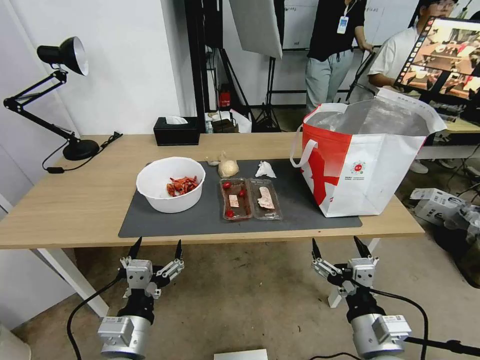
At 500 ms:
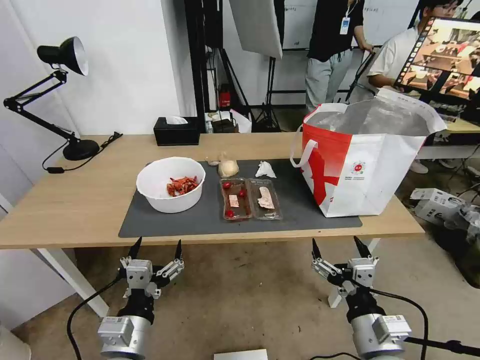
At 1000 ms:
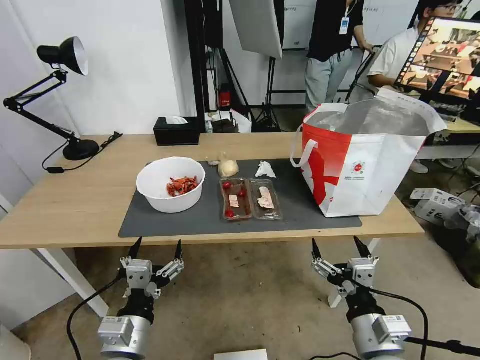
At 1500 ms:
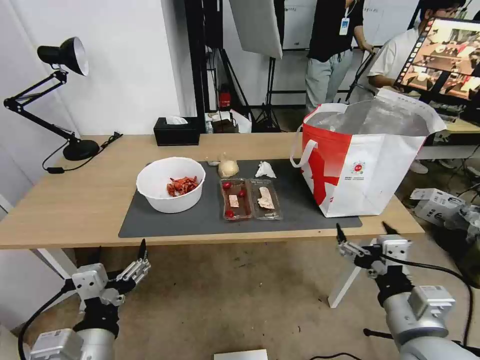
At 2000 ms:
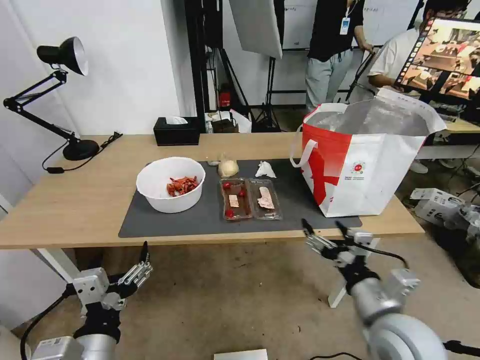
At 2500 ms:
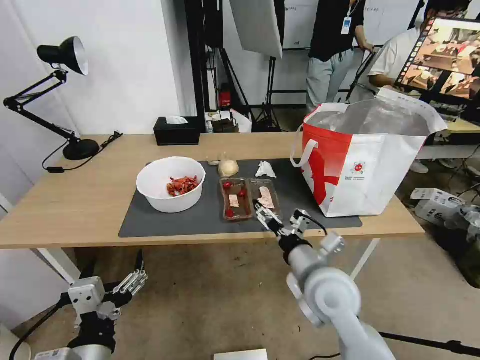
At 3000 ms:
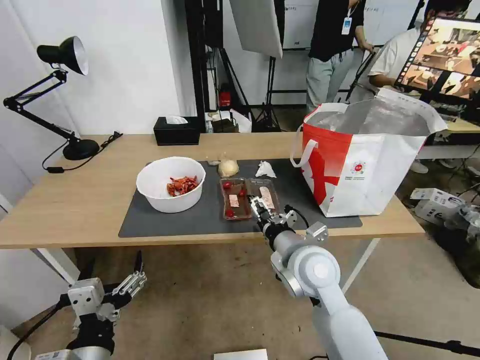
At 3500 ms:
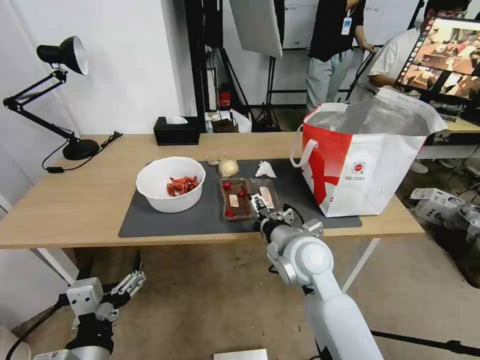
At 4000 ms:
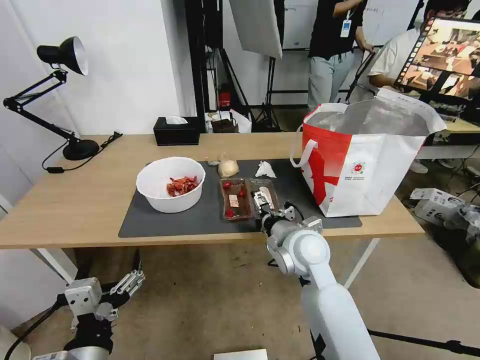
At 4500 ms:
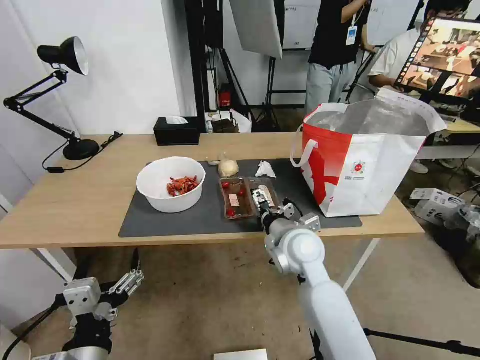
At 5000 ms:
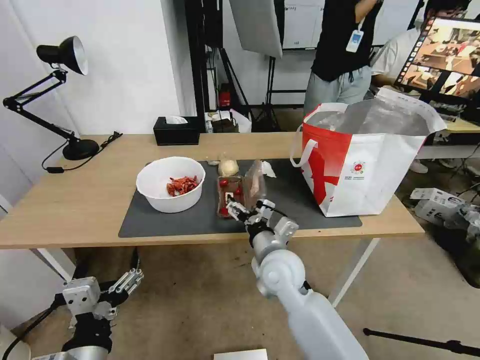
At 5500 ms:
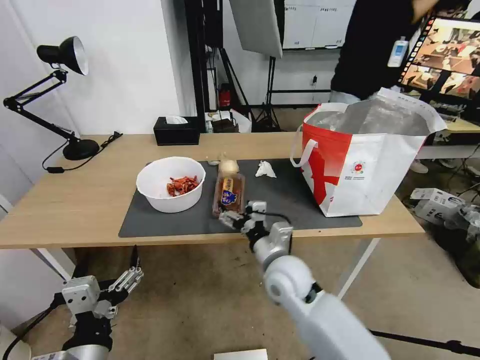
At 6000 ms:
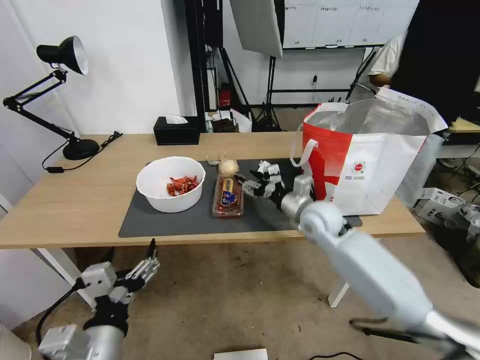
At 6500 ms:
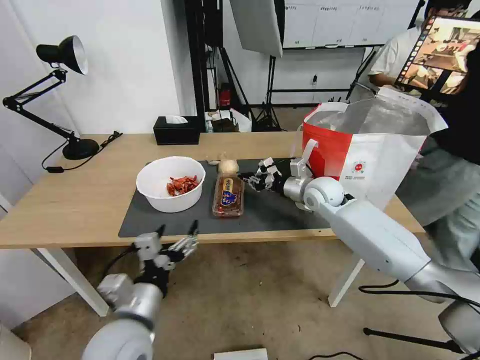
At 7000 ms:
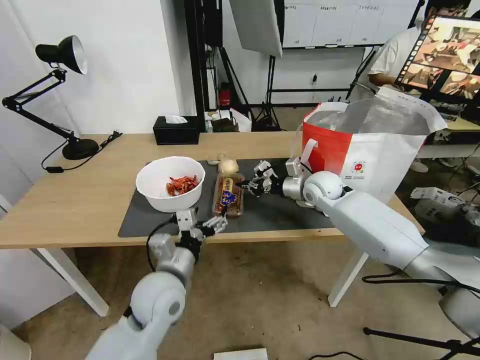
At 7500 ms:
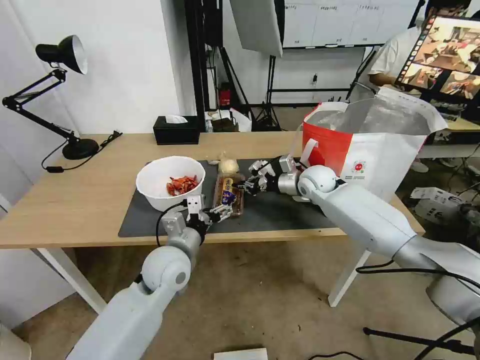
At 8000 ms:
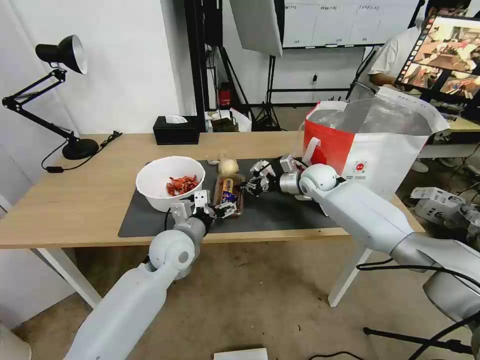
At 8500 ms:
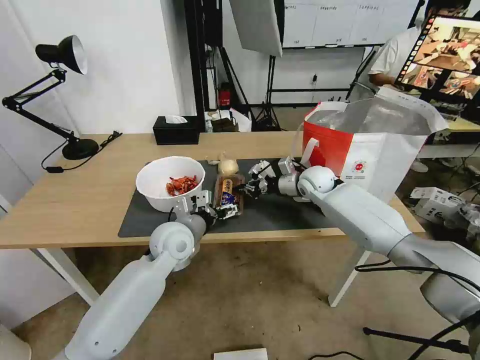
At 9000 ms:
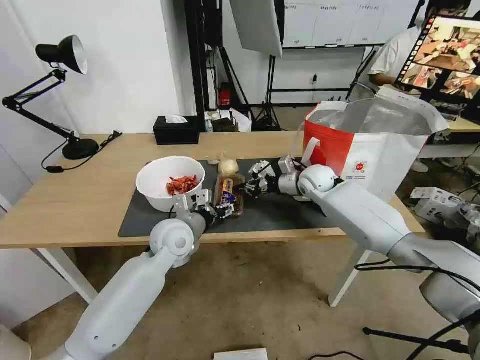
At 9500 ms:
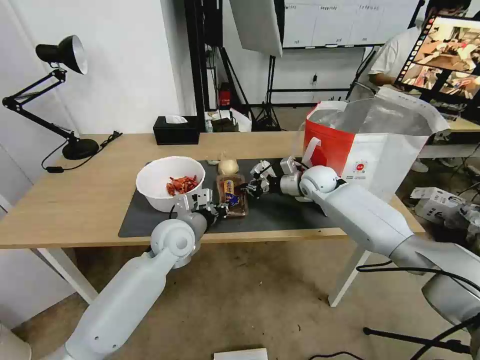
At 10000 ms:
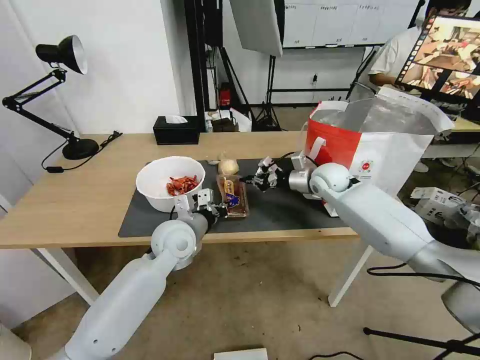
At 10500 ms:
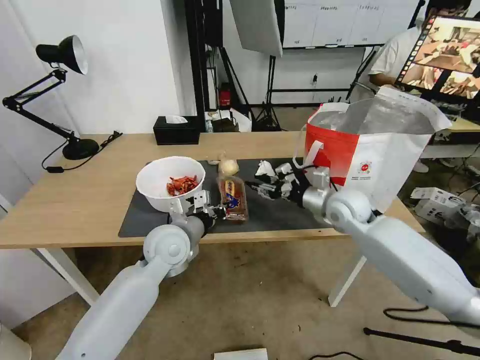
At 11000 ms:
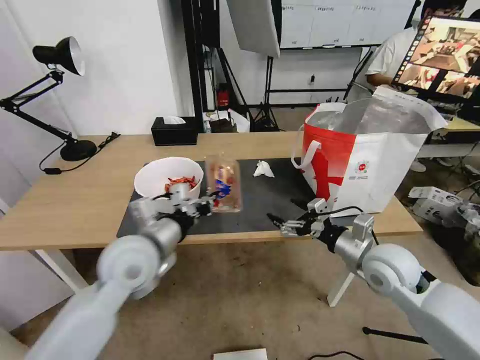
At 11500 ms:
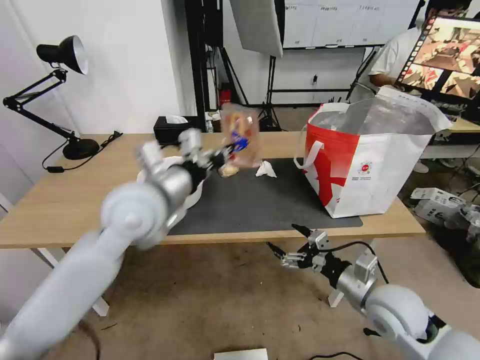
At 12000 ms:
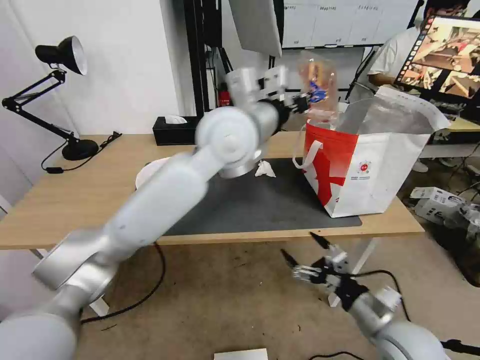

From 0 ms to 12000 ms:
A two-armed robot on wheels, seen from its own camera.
Task of the whole recording: Pick up the trash from the table and place it into the takeout bag.
From 2000 ms to 4000 ms: The right gripper is displaced forward and to the left by about 20 cm.
From 4000 ms to 6000 ms: The right gripper shifts some 10 cm forward and to the right, and closes up.
From 6000 ms to 8000 ms: The right gripper goes about 15 cm forward, and closes up. Meanwhile the left gripper goes approximately 25 cm forward.
From 8000 ms to 10000 ms: The left gripper closes its fingers.
From 10000 ms to 12000 ms: The right gripper is displaced backward by about 35 cm, and opens its fingers. Meanwhile the left gripper is displaced upward and to the right by some 25 cm.

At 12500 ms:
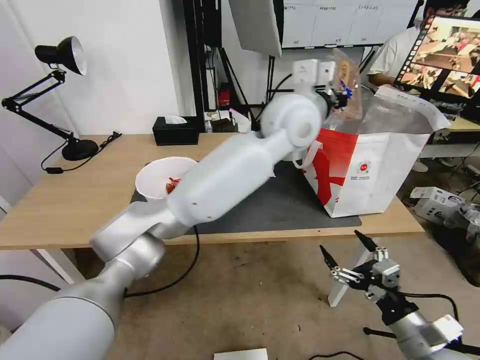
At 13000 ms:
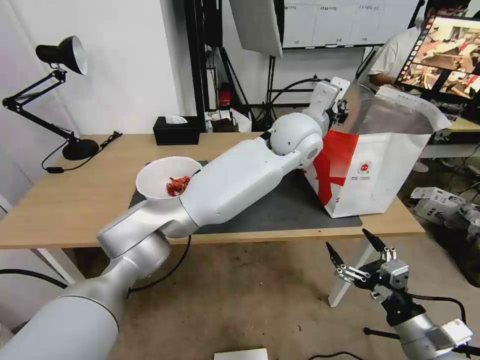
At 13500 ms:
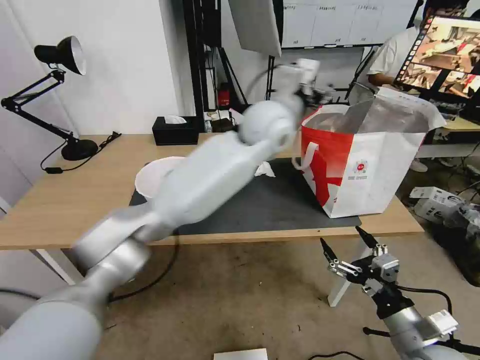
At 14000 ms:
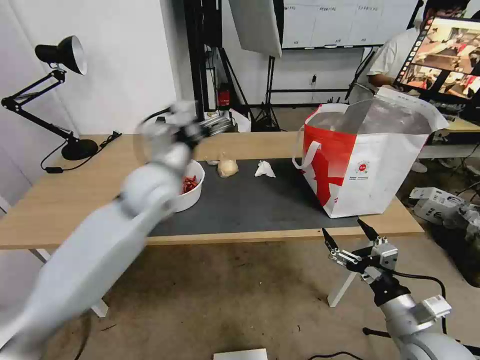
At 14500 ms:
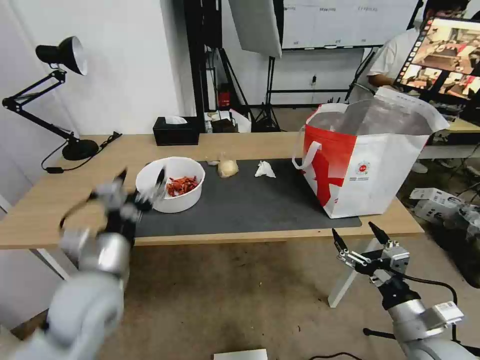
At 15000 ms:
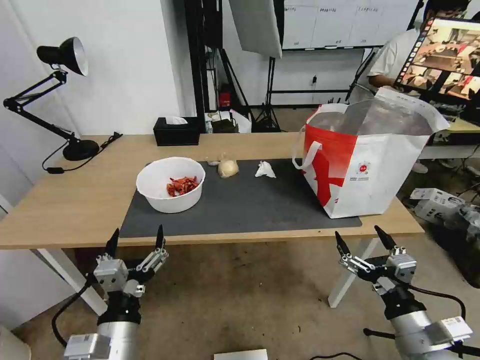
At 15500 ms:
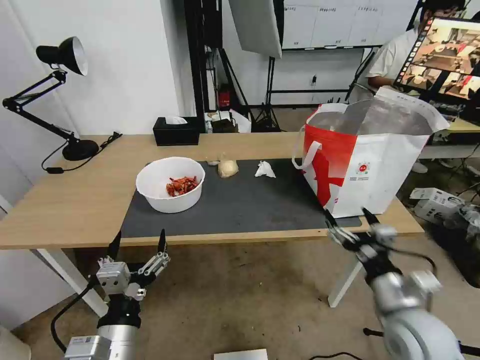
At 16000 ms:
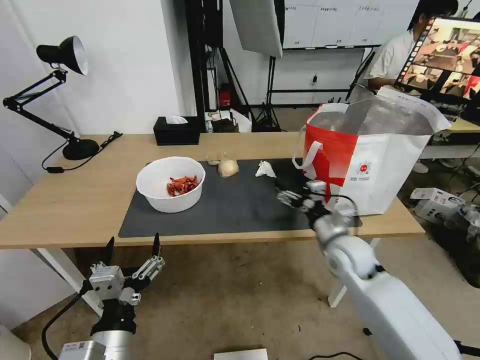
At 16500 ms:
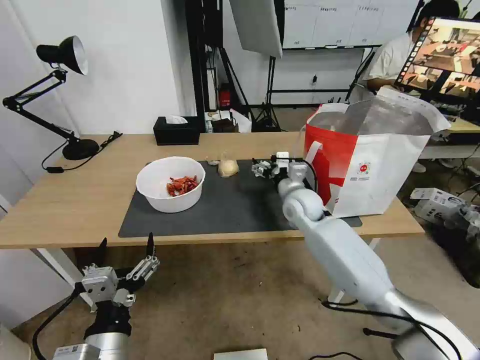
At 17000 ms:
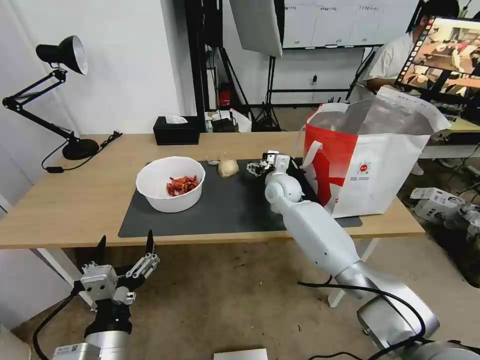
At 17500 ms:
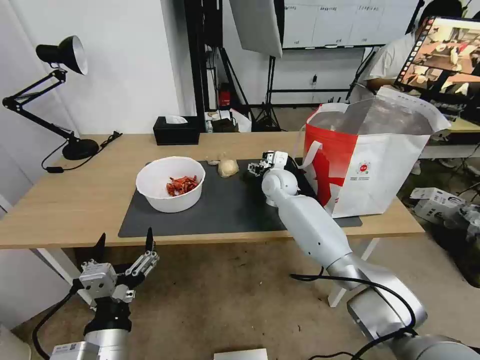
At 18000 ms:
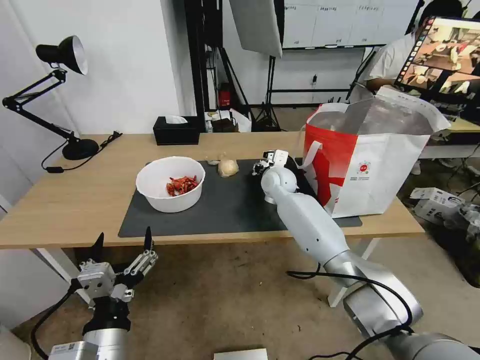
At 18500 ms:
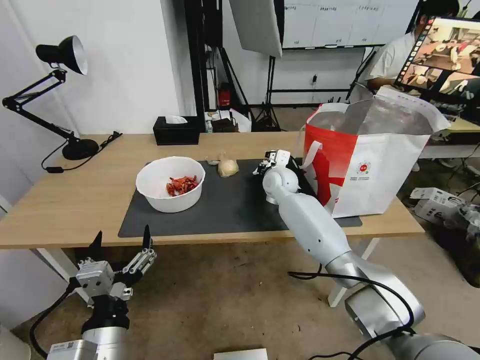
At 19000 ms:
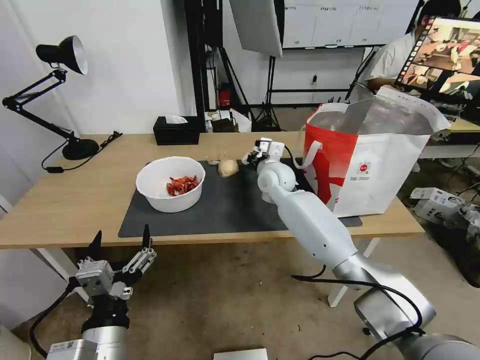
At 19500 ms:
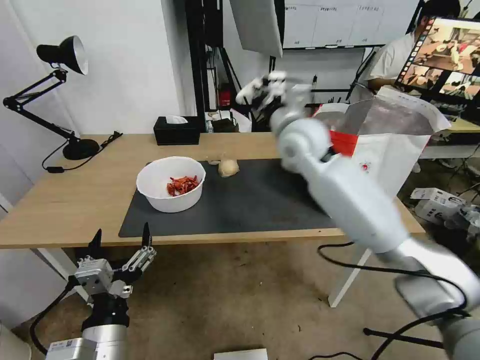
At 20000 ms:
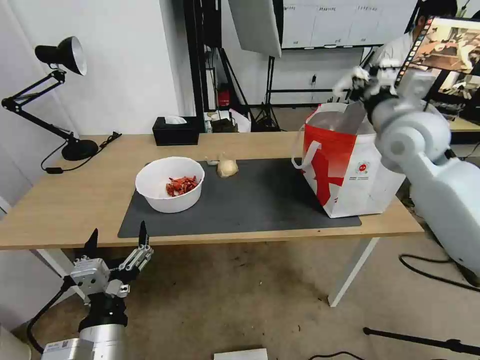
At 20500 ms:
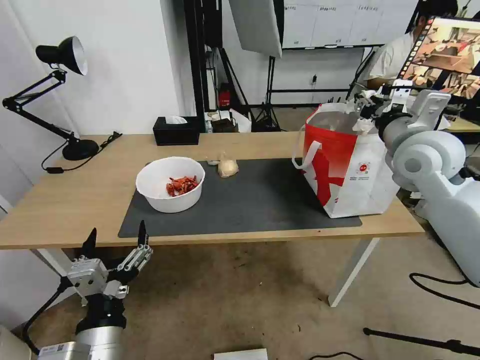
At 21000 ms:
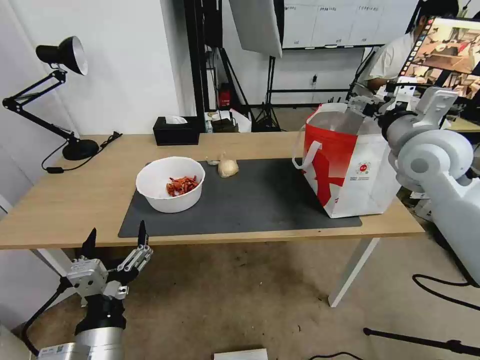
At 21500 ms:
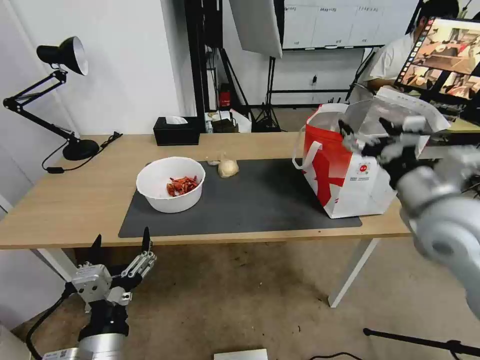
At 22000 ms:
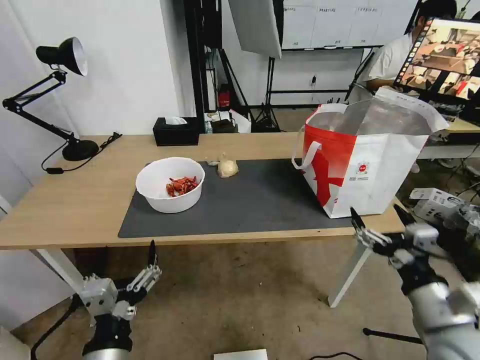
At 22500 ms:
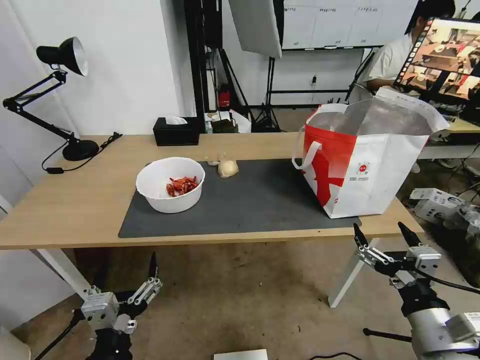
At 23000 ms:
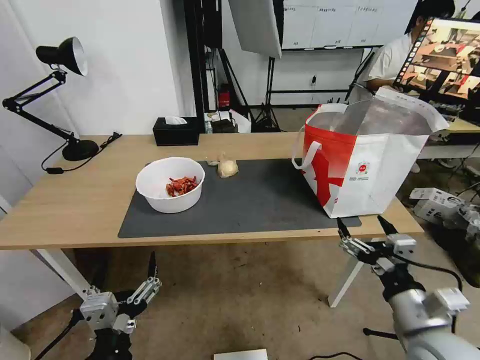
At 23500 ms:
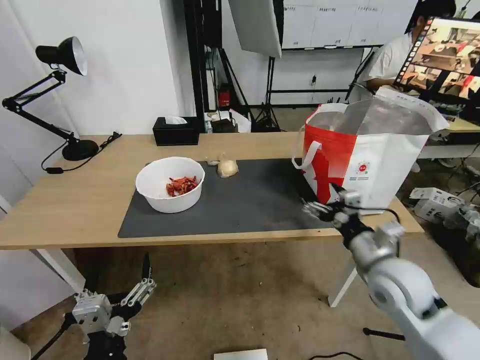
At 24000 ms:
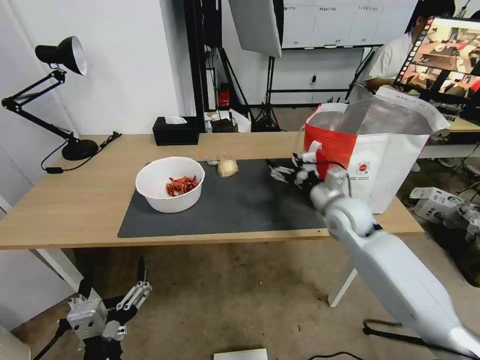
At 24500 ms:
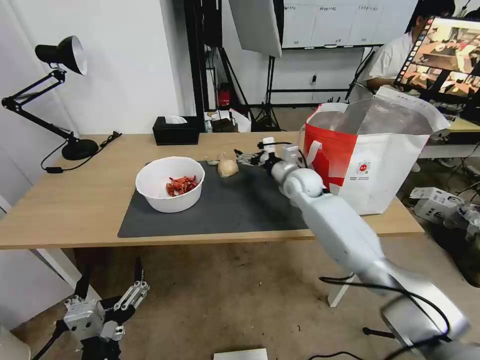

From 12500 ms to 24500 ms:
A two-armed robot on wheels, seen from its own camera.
Task of the whole recording: Pick up the trash from the table and place it into the takeout bag.
From 12500 ms to 14500 ms: The left gripper heads to the left, backward and downward, covering about 40 cm, and opens up.
From 14500 ms to 16500 ms: The left gripper is displaced backward and downward by roughly 15 cm. Meanwhile the right gripper shifts about 35 cm forward and to the left.
From 16500 ms to 18500 ms: The right gripper heads forward, covering approximately 10 cm, and closes.
From 18500 ms to 20500 ms: The right gripper is displaced to the right, upward and backward by roughly 30 cm, and opens up.
From 20500 ms to 22500 ms: The left gripper shifts by about 5 cm. Meanwhile the right gripper is displaced backward and downward by about 35 cm, and opens.
From 22500 ms to 24500 ms: The right gripper shifts roughly 40 cm forward.

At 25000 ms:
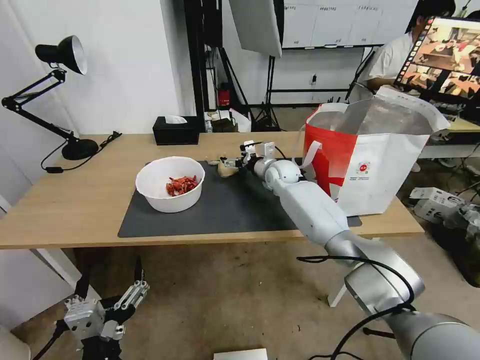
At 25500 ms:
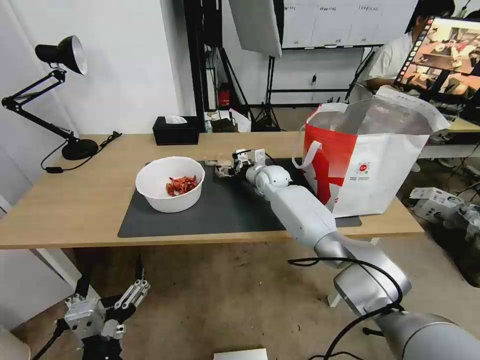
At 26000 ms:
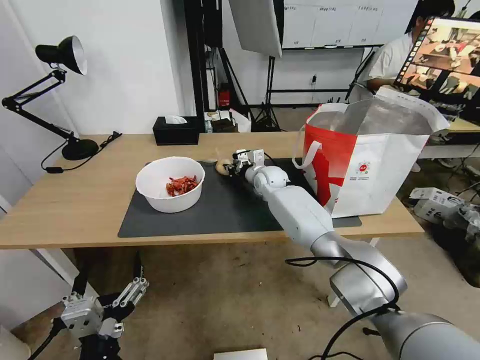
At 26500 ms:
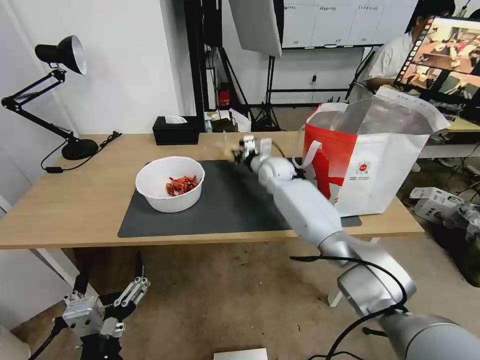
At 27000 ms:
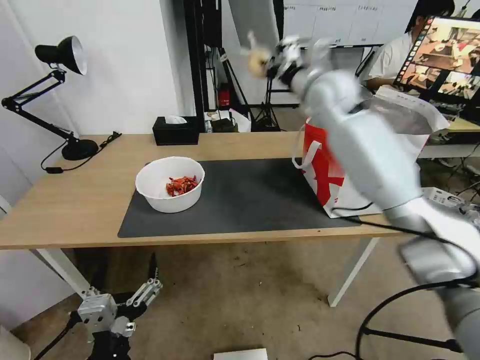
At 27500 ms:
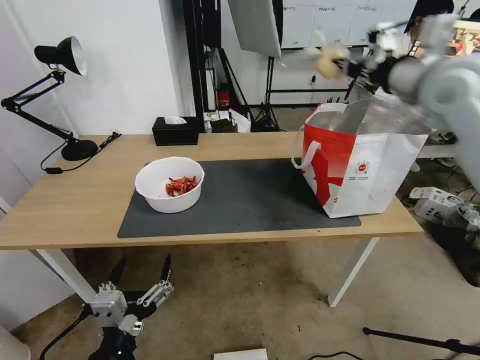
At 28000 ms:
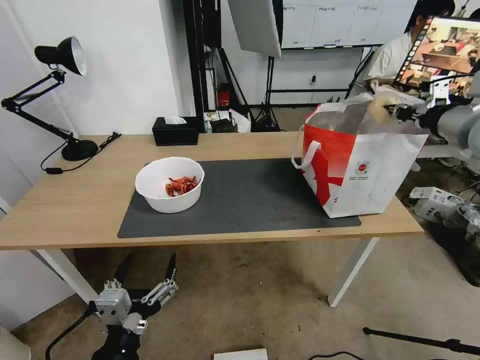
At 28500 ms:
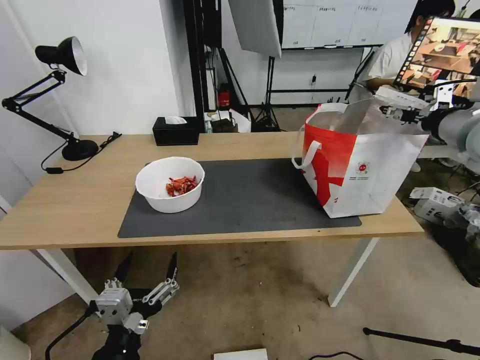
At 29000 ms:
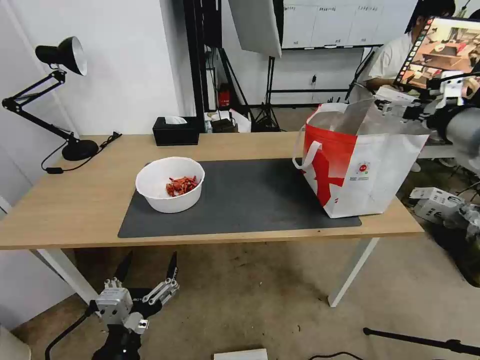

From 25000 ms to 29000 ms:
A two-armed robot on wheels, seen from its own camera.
Task of the whole recording: Pick up the trash from the table and place it into the takeout bag.
From 25000 ms to 27000 ms: The right gripper is displaced upward by about 25 cm, and closes up.
From 27000 ms to 29000 ms: The right gripper moves to the right and backward, some 30 cm, and opens.
